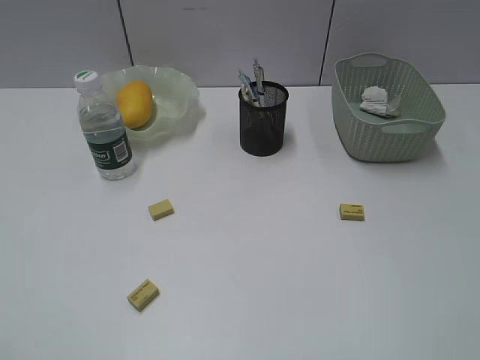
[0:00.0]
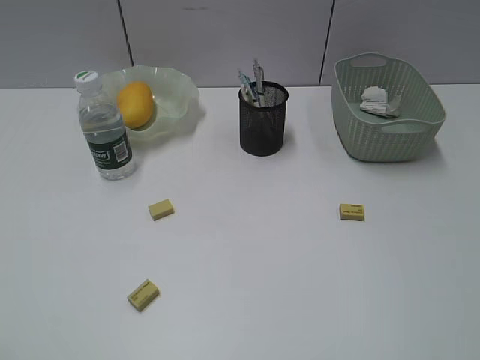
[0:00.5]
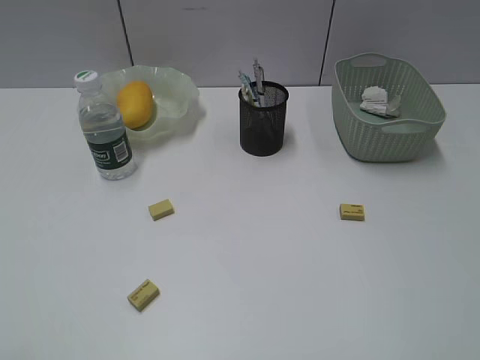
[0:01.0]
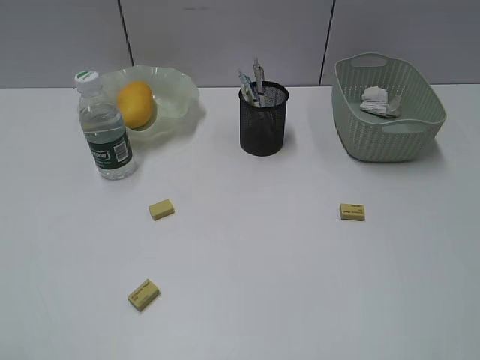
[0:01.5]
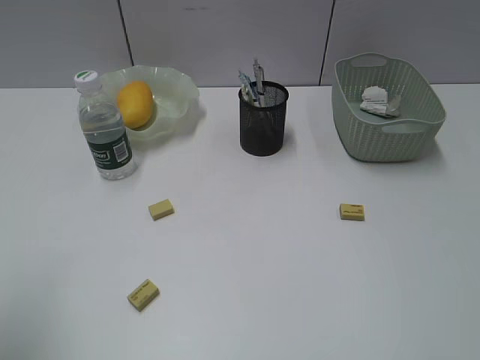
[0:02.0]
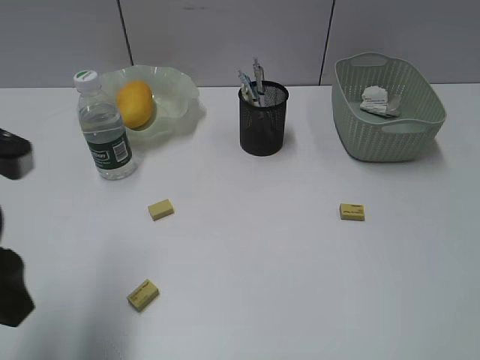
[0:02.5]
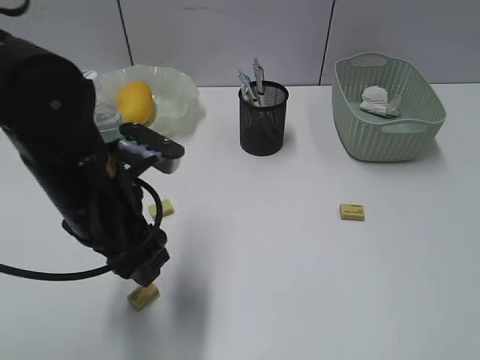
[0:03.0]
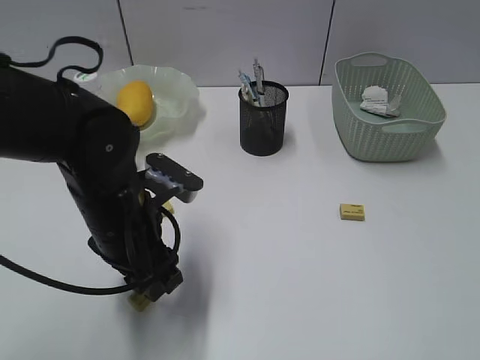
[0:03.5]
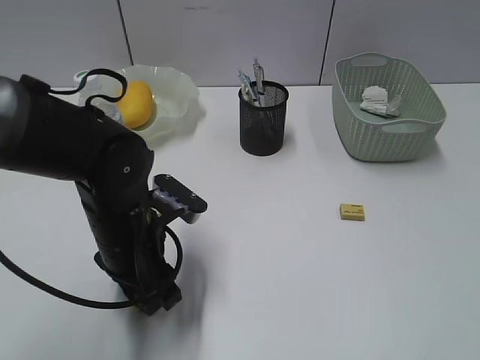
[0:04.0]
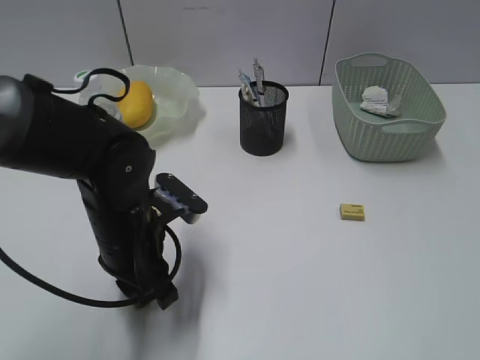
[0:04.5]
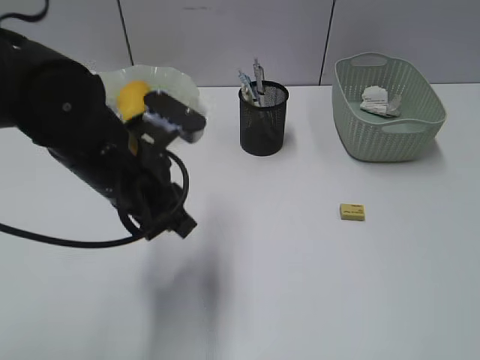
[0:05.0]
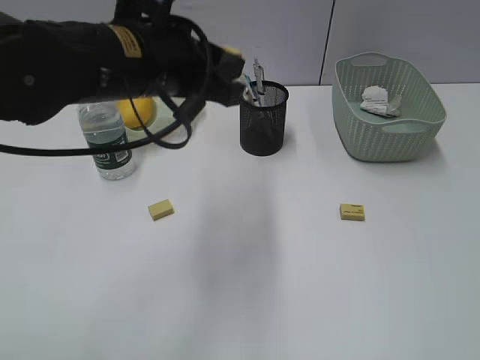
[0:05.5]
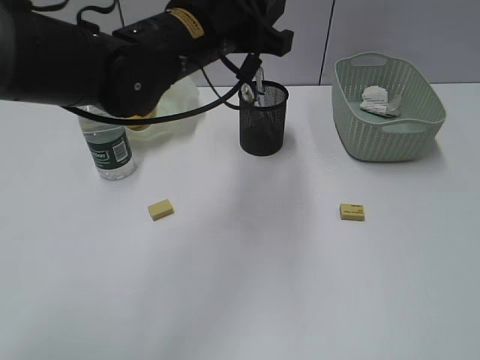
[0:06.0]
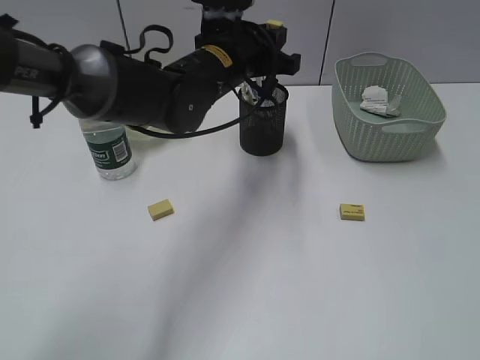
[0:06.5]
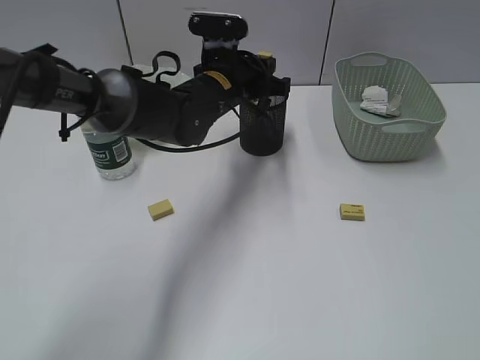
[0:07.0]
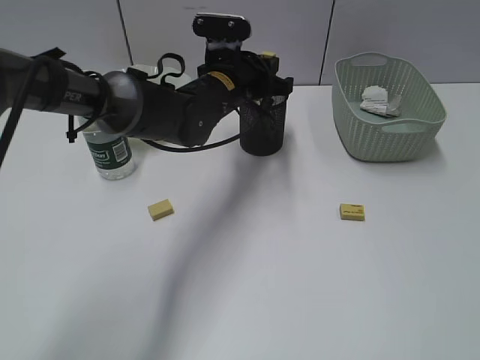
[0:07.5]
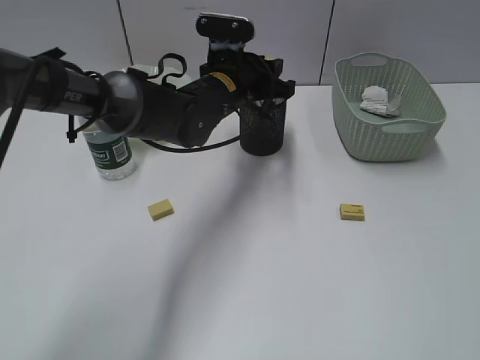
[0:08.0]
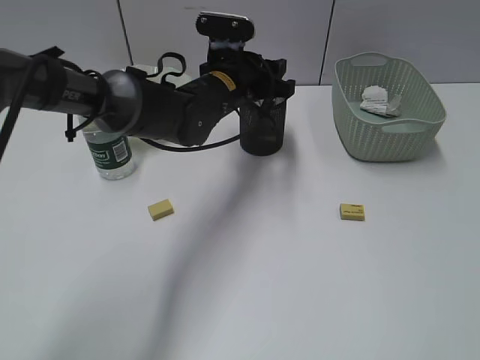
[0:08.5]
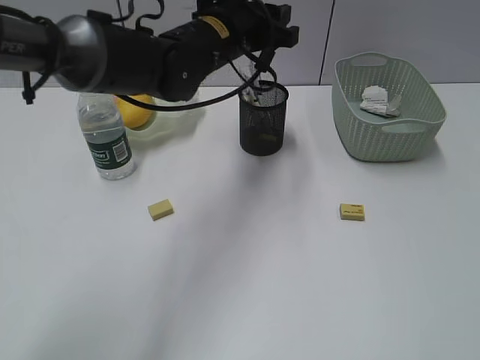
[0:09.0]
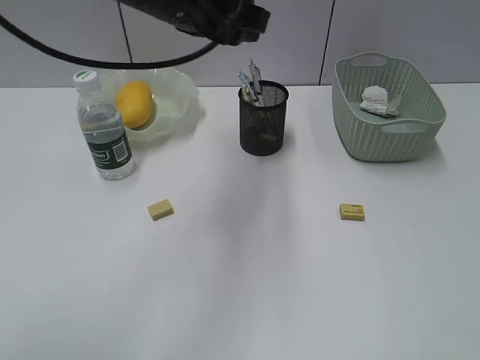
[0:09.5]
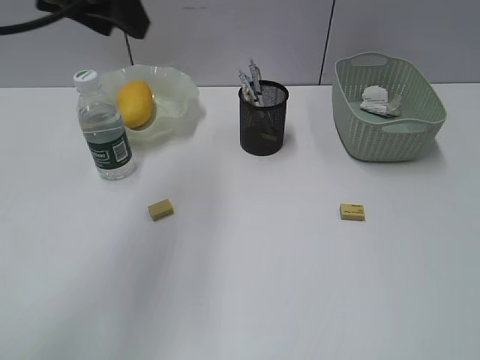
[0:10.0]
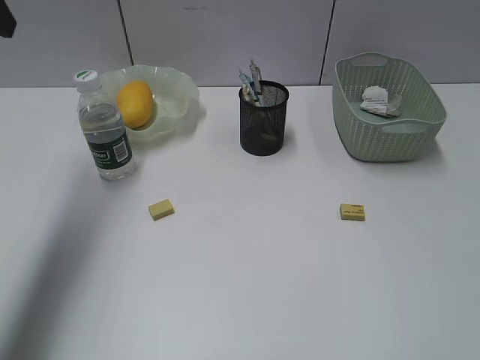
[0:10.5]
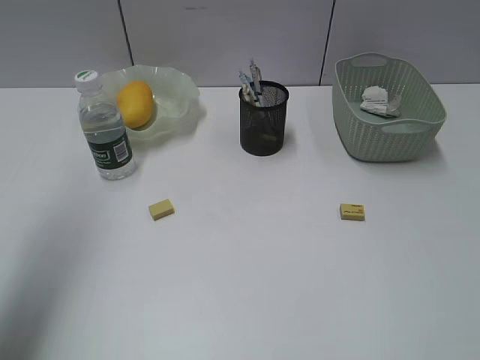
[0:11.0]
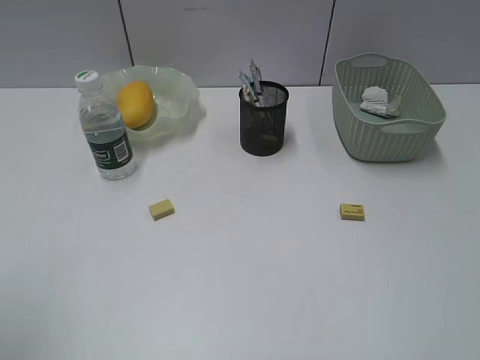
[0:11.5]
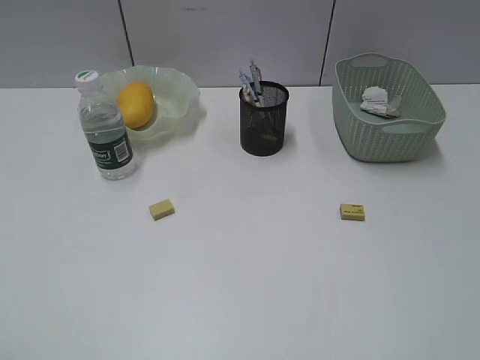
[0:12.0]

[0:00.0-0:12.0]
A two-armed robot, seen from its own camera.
Step, 0.0 to 4.5 s: Grasp the eraser with left gripper.
Step, 5.0 to 8.5 s: Place the eraser in pen holder with left gripper.
0.0 to 2.0 s: The left gripper goes approximately 10 cm forward, and opens.
2.0 to 4.0 s: The left gripper heads to the right, downward and forward, covering roughly 30 cm.
4.0 to 6.0 s: The left gripper travels upward, forward and to the right by roughly 20 cm, and closes.
6.0 to 8.0 s: The left gripper shifts approximately 15 cm downward and forward.
8.0 to 10.0 s: The left gripper travels upward, to the left and backward by some 25 cm.
10.0 to 12.0 s: The left gripper goes some 35 cm backward and to the left.

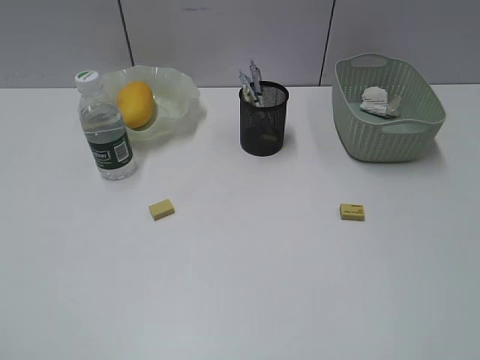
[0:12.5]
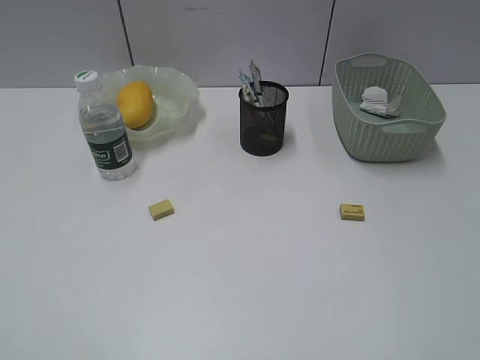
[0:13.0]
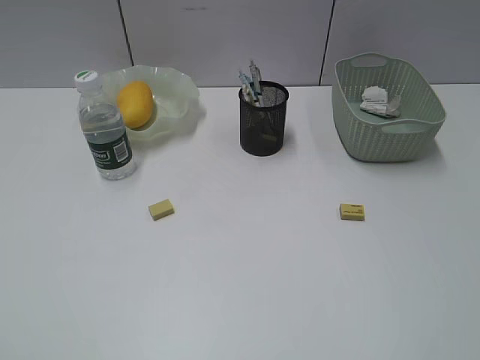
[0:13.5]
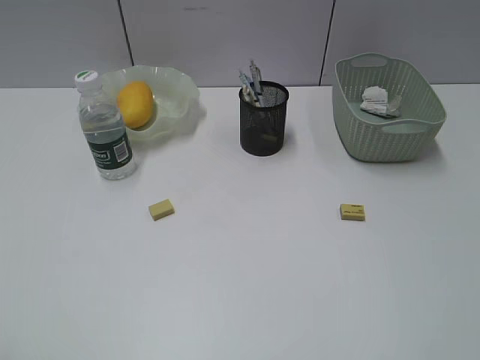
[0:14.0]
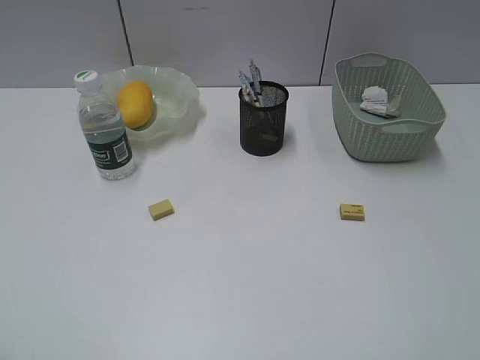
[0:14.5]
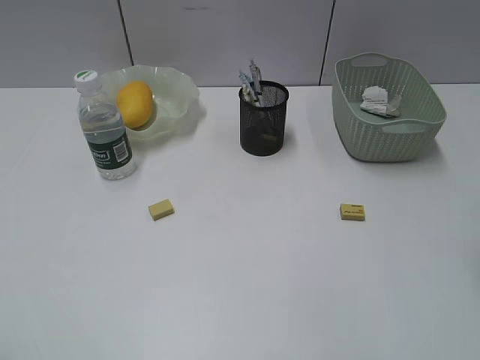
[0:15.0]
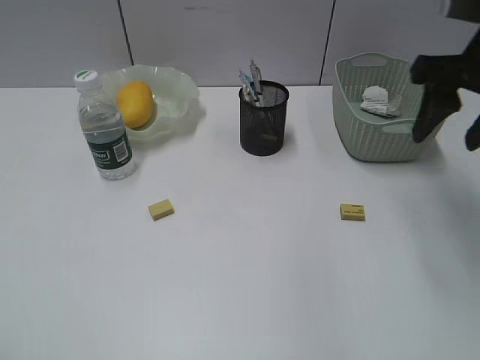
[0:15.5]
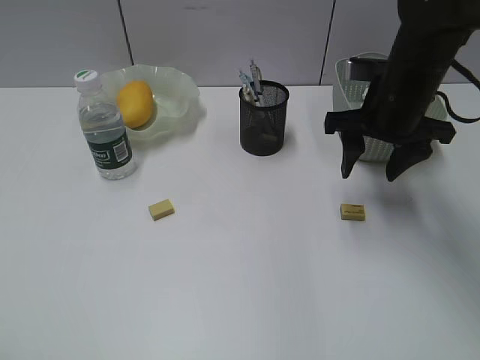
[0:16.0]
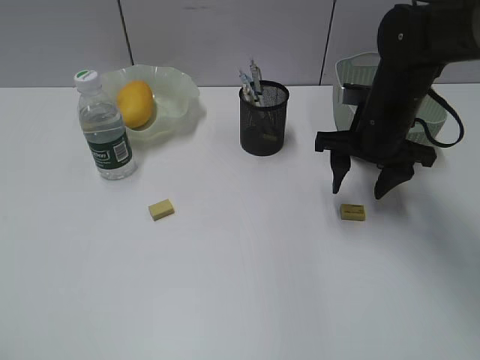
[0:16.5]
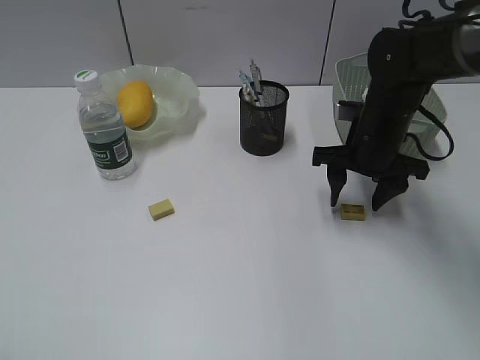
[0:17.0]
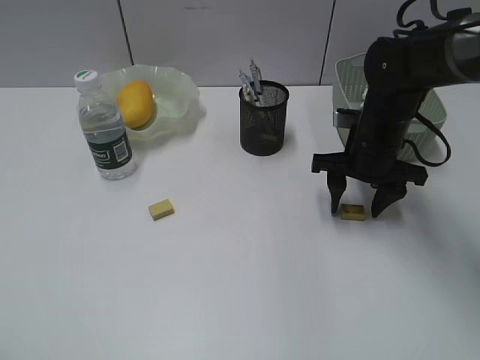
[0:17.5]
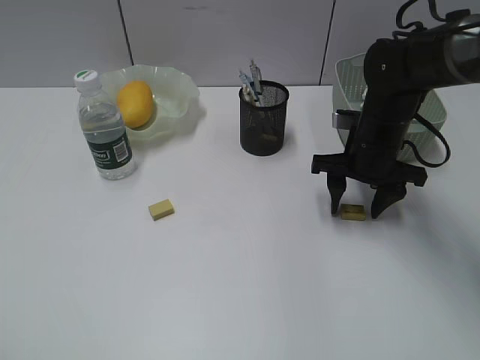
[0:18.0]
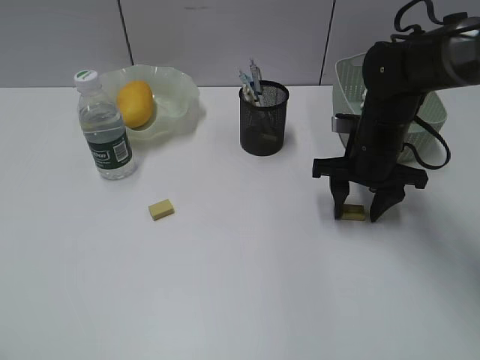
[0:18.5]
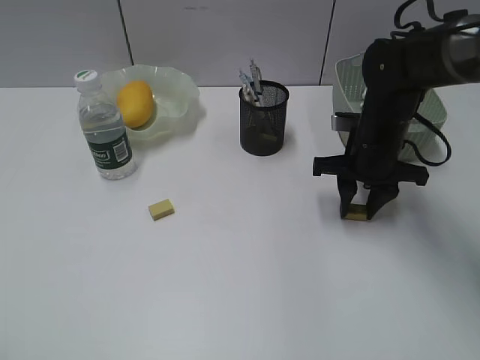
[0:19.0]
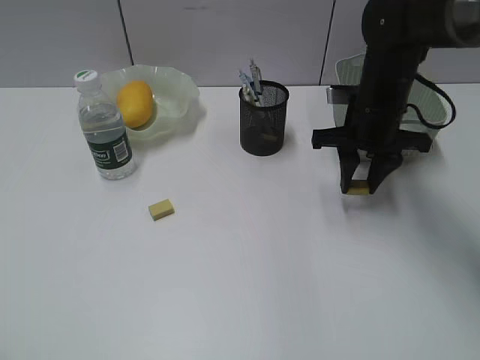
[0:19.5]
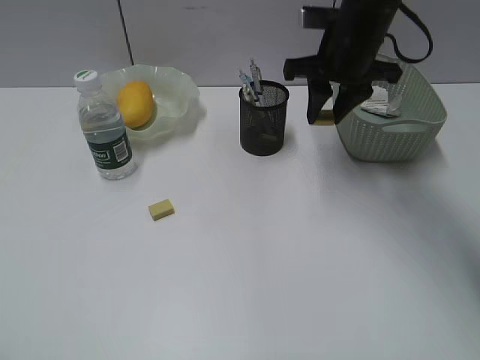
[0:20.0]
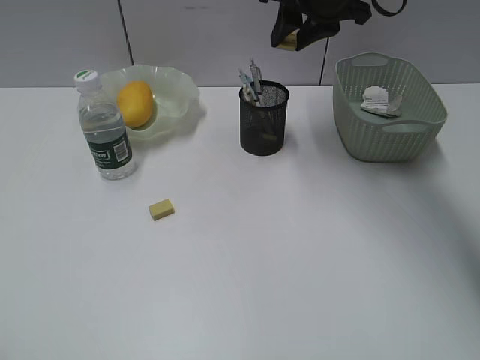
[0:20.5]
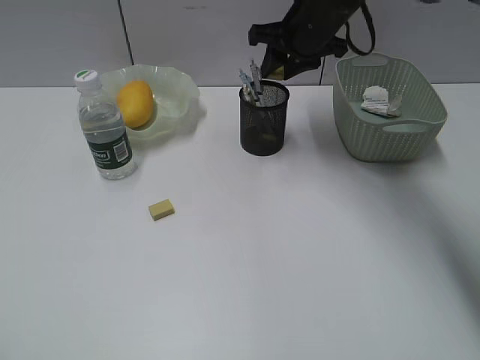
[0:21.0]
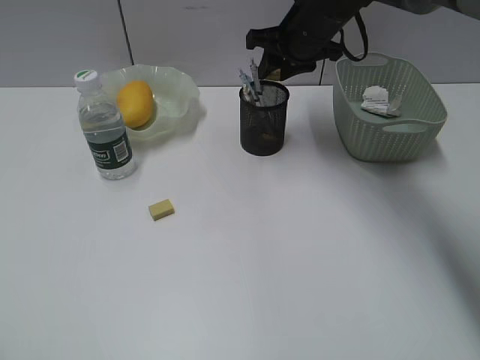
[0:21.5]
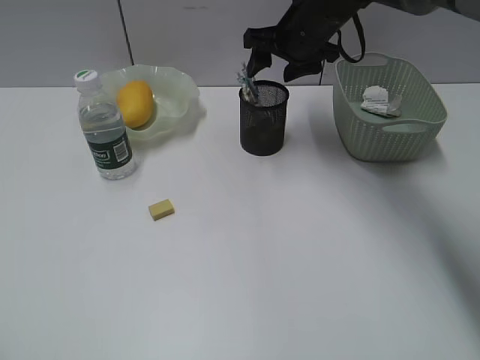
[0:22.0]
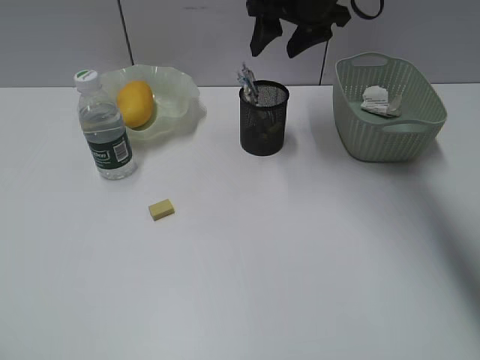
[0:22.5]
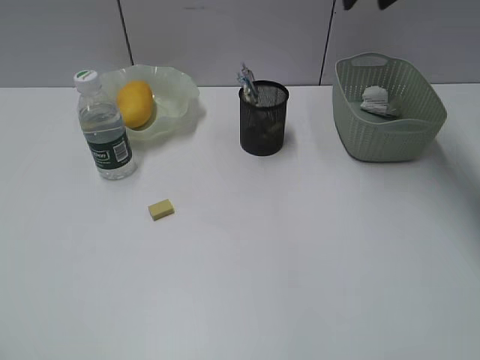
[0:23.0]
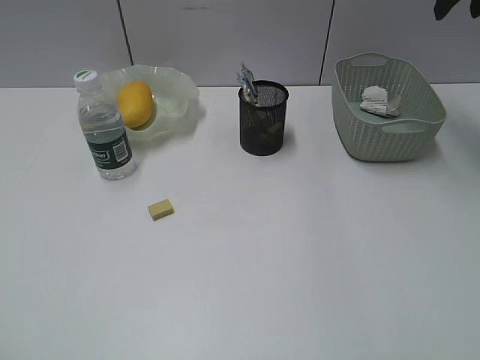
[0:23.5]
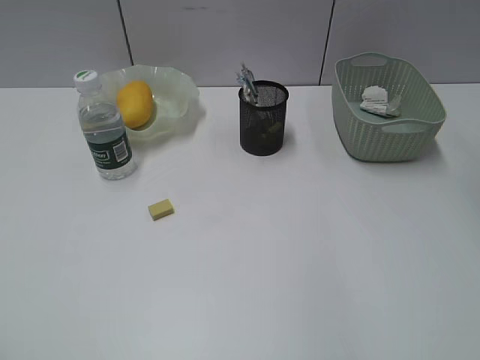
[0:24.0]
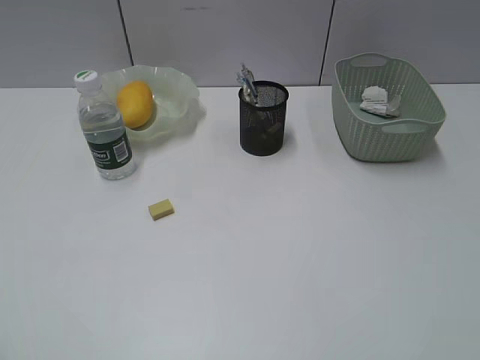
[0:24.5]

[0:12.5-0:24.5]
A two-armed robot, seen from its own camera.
Step, 12.5 to 18.5 s: Grasp the eraser with right gripper.
Step, 19.0 to 22.0 s: Place the eraser in pen holder with right gripper.
14.5 to 16.5 s: The right gripper goes roughly 35 cm forward.
16.5 to 18.5 s: The grippers stay close to where they were, moving slightly.
18.5 to 20.5 s: The right gripper travels upward and forward by approximately 20 cm, and closes its fingers.
20.5 to 22.5 s: The right gripper opens its fingers.
22.5 to 24.5 s: The right gripper heads backward and to the right, covering some 35 cm.

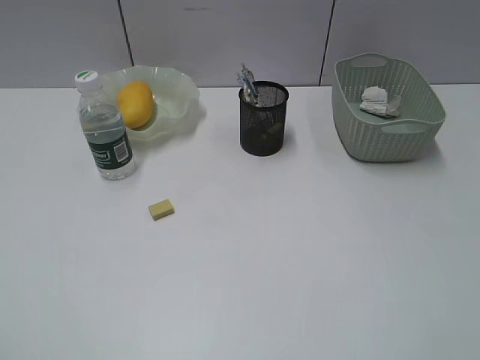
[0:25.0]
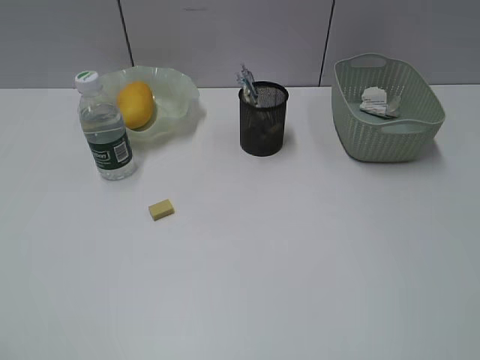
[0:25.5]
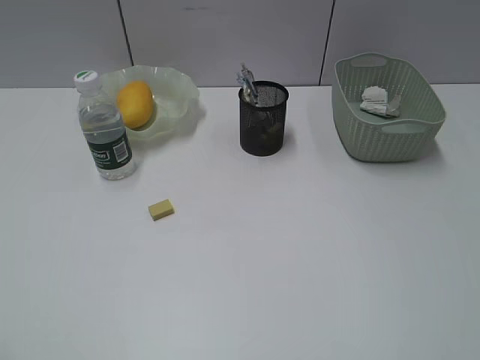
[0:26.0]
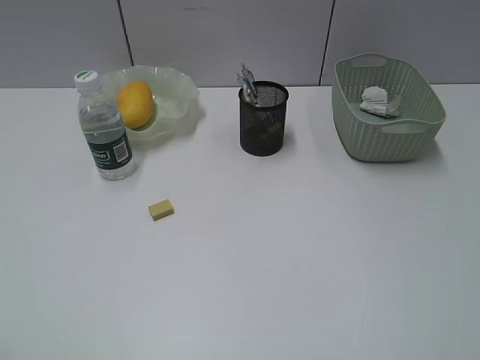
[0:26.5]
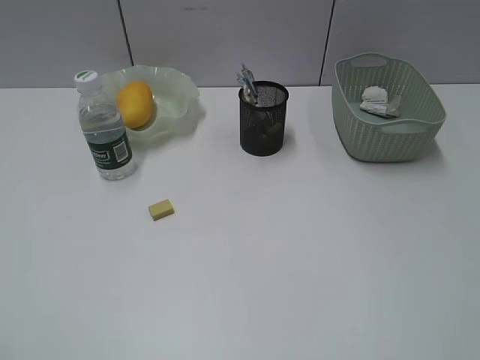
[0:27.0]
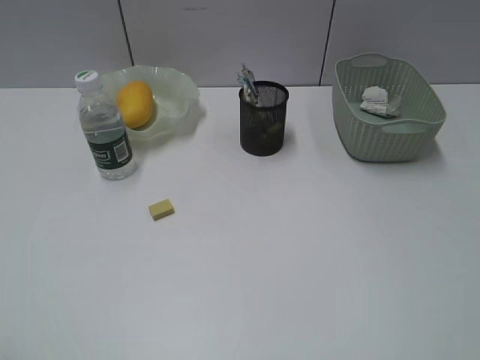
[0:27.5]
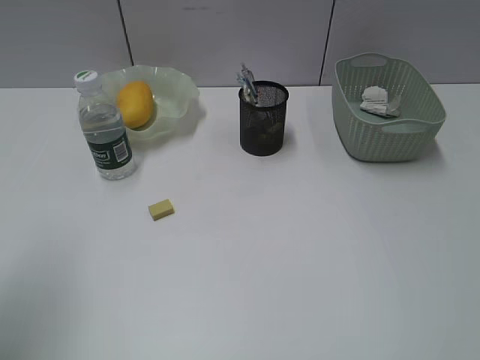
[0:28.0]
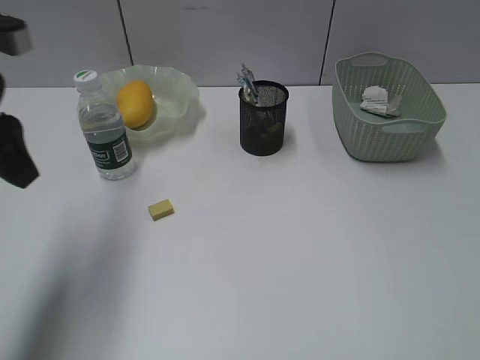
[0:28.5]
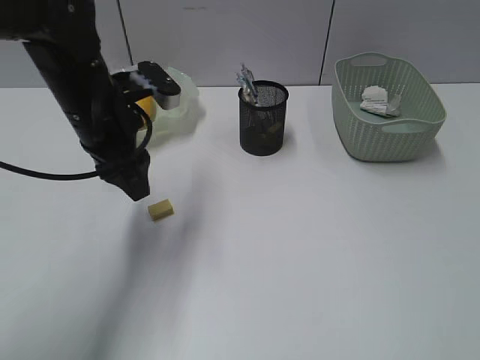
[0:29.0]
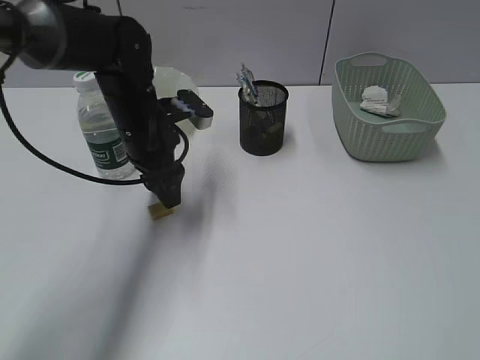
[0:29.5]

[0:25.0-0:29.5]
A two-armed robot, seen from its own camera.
27.0 to 29.5 s: The left gripper heads forward and to the right, covering roughly 40 cm.
